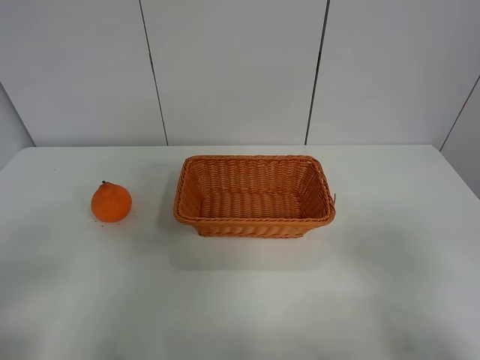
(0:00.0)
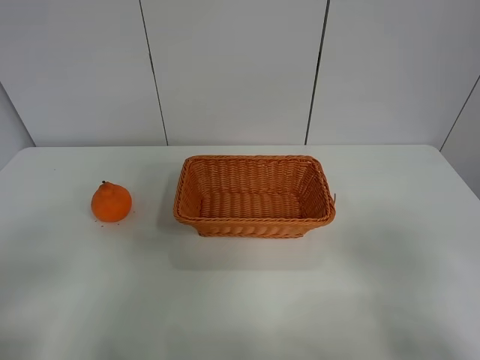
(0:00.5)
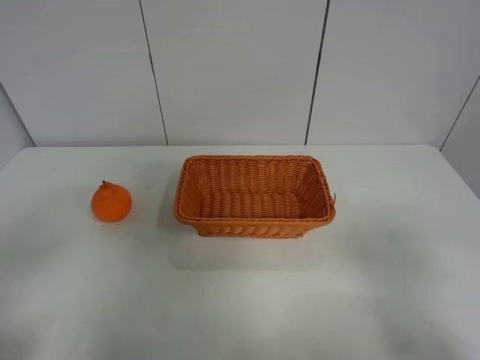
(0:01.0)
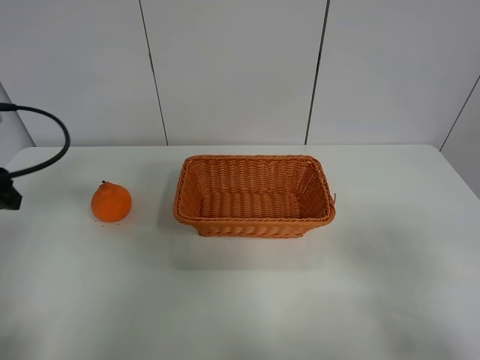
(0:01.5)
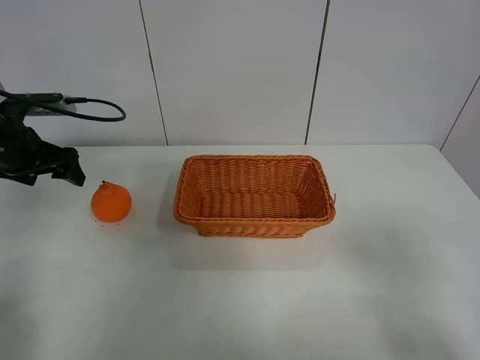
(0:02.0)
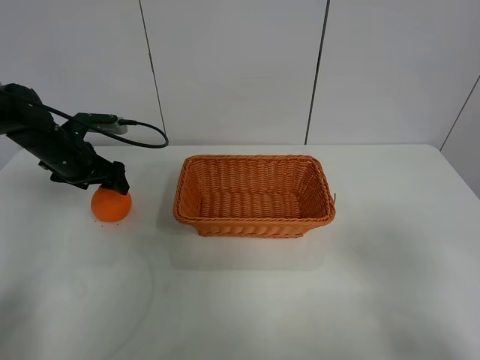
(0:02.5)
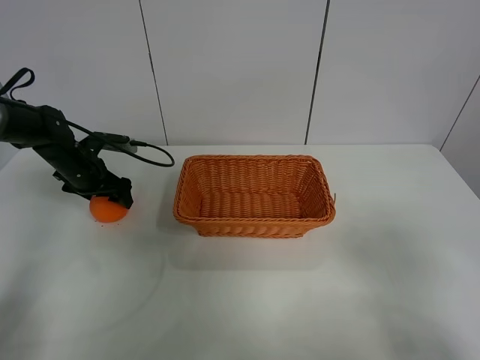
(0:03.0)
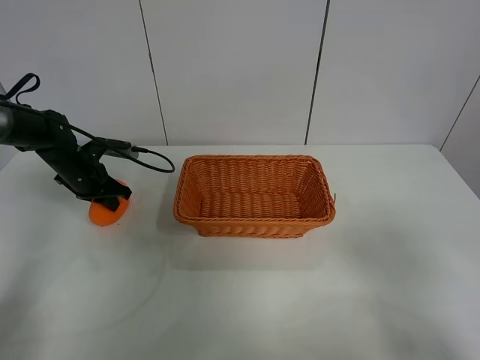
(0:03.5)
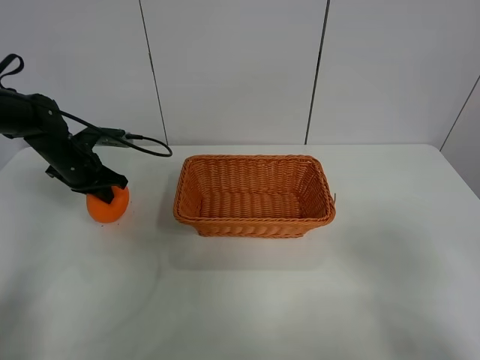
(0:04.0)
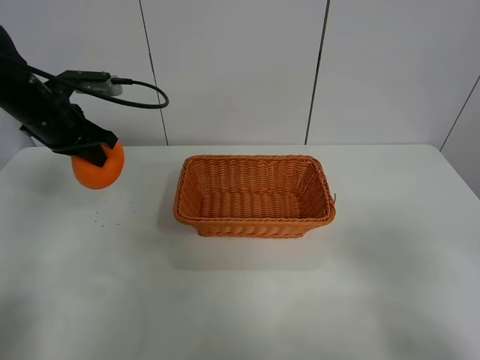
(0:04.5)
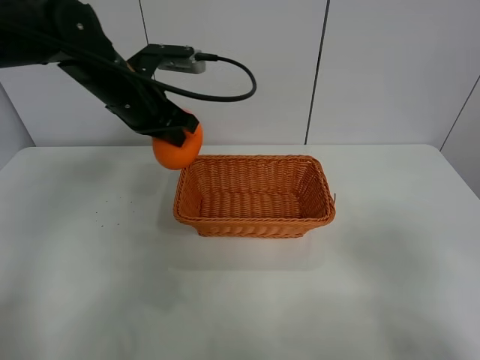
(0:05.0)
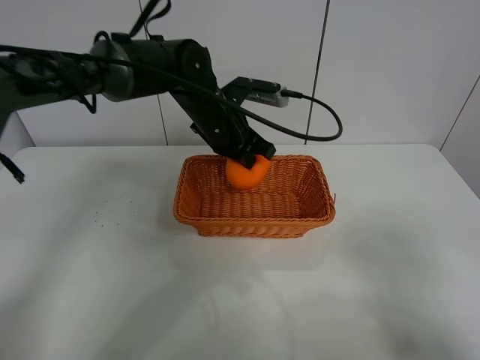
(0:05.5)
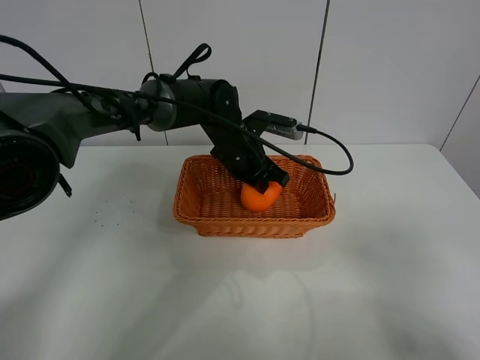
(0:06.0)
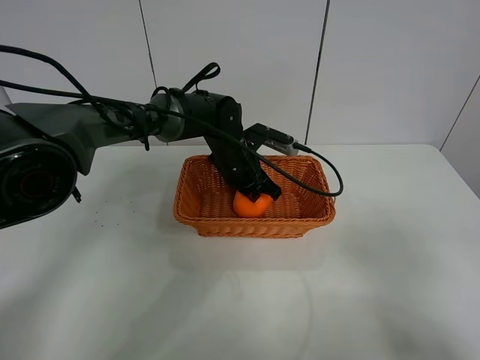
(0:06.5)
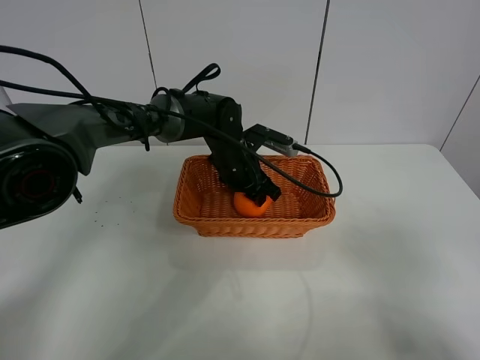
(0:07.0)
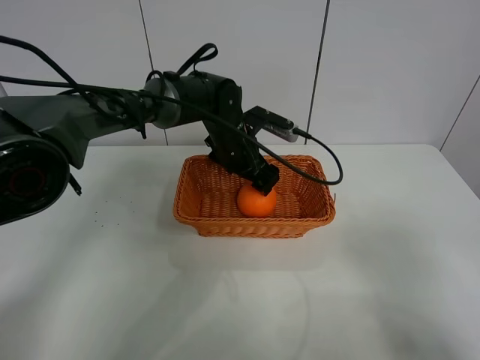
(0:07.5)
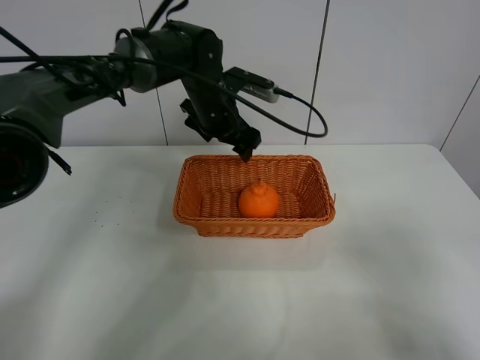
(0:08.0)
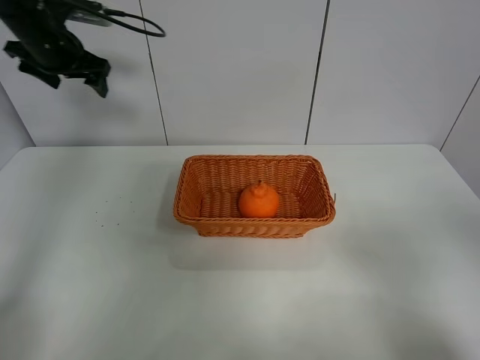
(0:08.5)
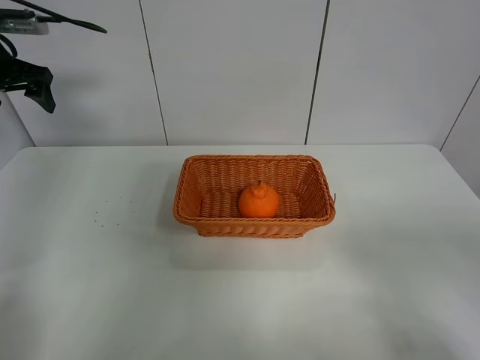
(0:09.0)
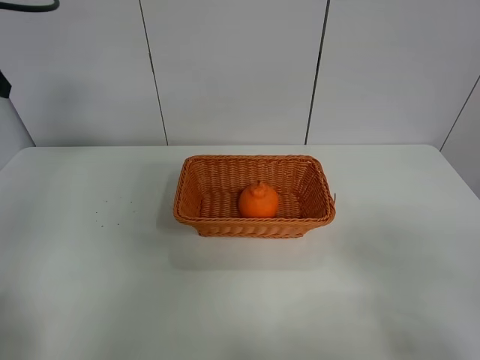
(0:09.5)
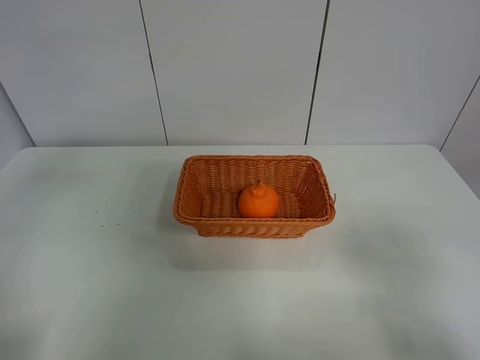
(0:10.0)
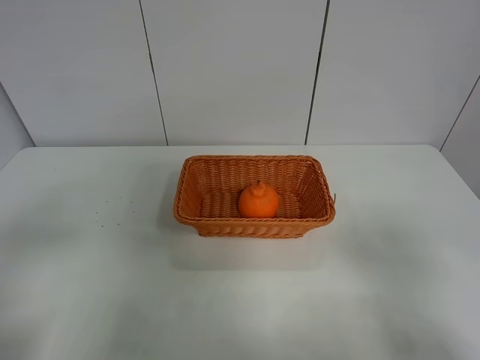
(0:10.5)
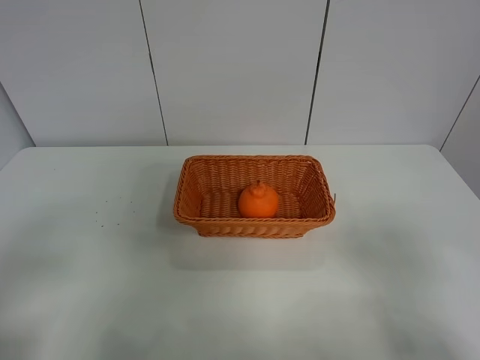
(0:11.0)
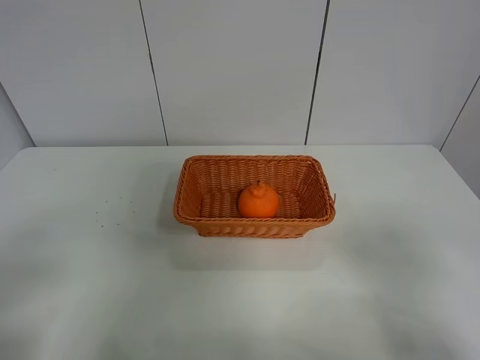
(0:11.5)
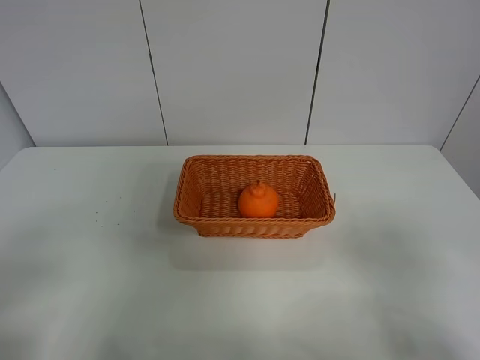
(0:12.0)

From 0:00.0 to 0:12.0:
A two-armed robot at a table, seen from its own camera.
Task of the whole recording: left gripper grabs oranges and puts them in the basket.
Step, from 0:00.0 to 0:03.5: Grasp the orange with left gripper.
Step, from 0:04.0 to 0:08.0: Place the orange in the basket with left gripper.
From 0:00.0 to 0:02.0: The left gripper shifts about 35 cm forward.
From 0:02.0 to 0:04.0: The left gripper travels downward and forward by approximately 10 cm, and closes its fingers.
From 0:04.0 to 0:06.0: The left gripper travels to the right by roughly 30 cm.
From 0:06.0 to 0:08.0: The left gripper goes roughly 10 cm upward and to the left, and opens its fingers.
From 0:08.0 to 0:10.0: The left gripper moves backward, to the left and upward, about 40 cm.

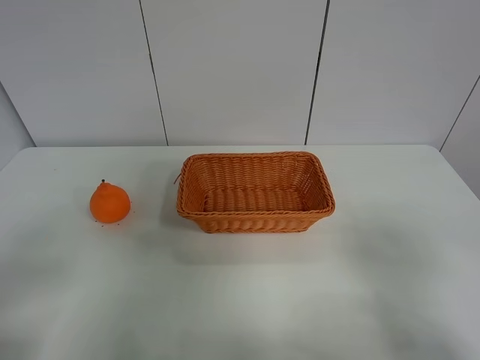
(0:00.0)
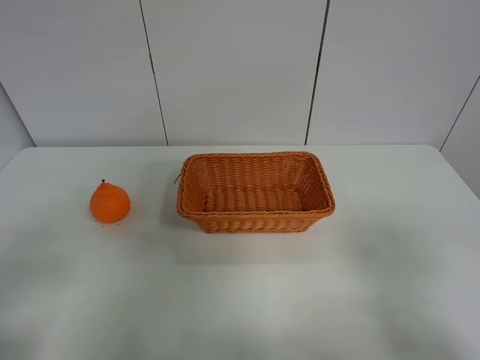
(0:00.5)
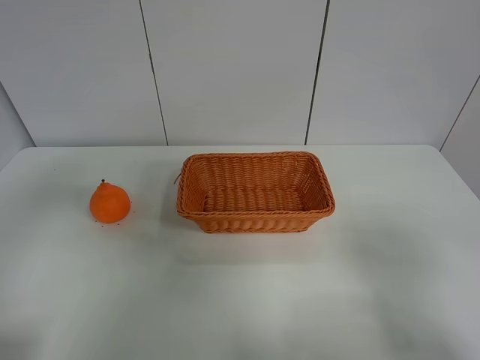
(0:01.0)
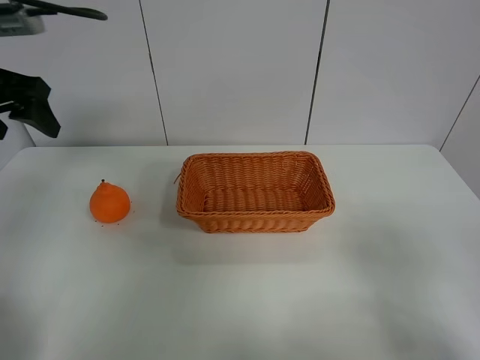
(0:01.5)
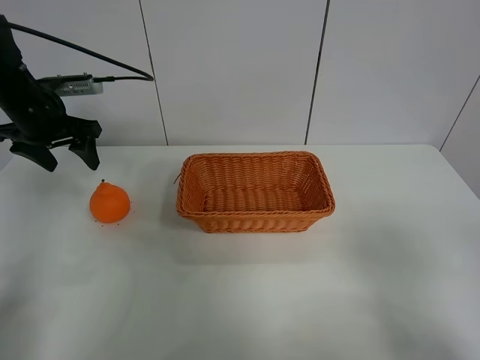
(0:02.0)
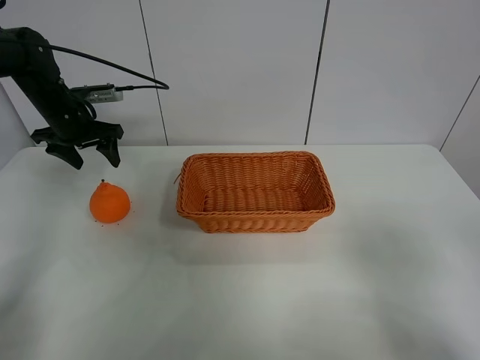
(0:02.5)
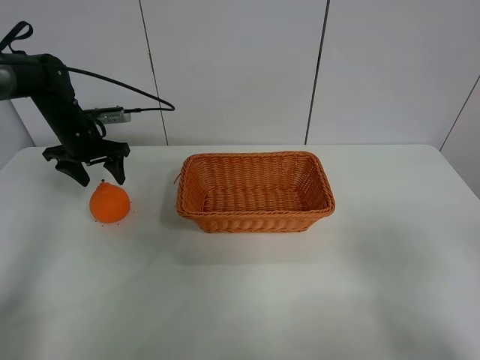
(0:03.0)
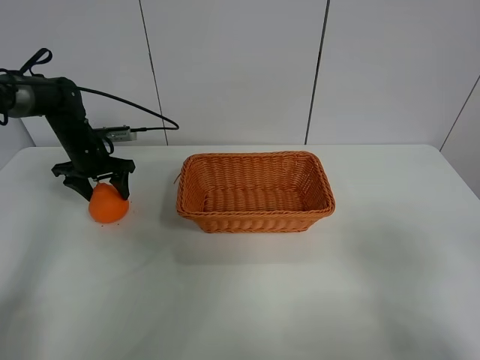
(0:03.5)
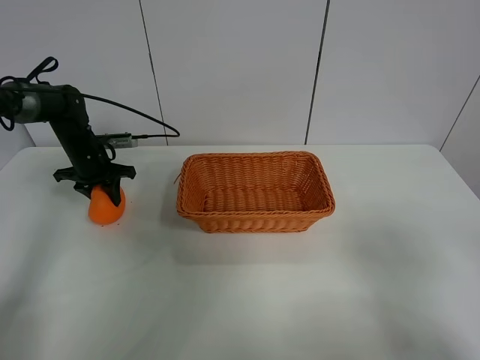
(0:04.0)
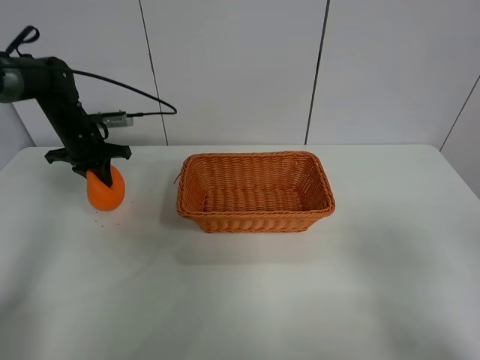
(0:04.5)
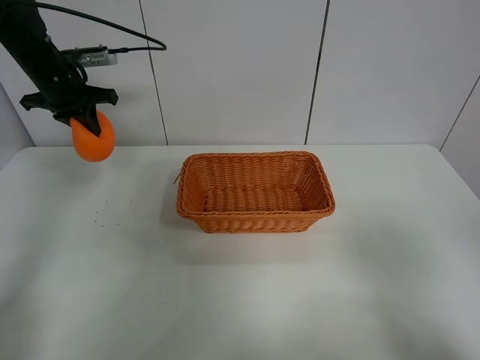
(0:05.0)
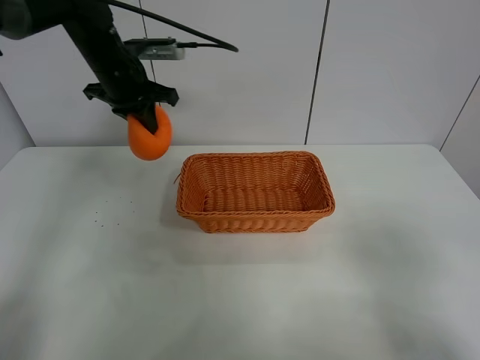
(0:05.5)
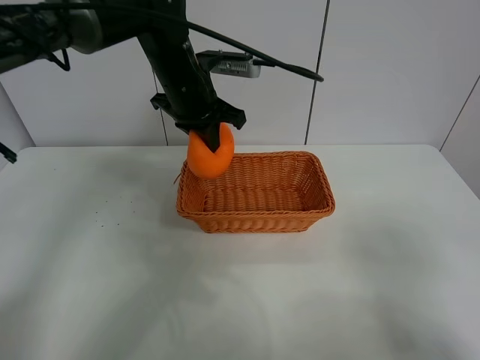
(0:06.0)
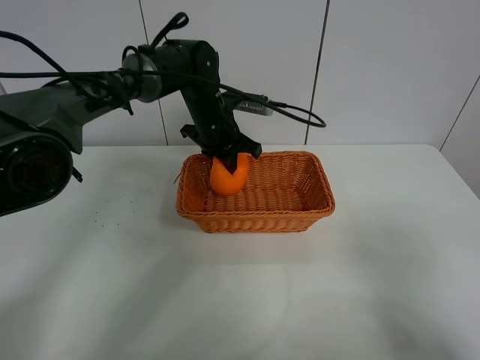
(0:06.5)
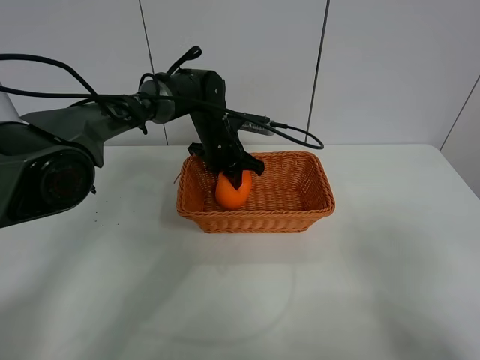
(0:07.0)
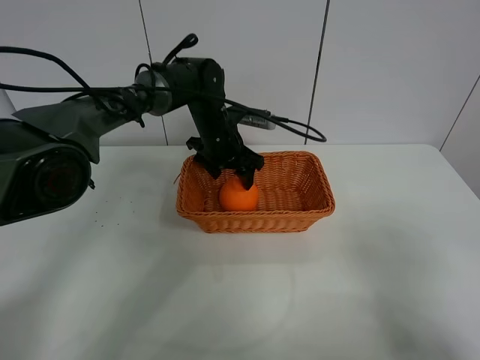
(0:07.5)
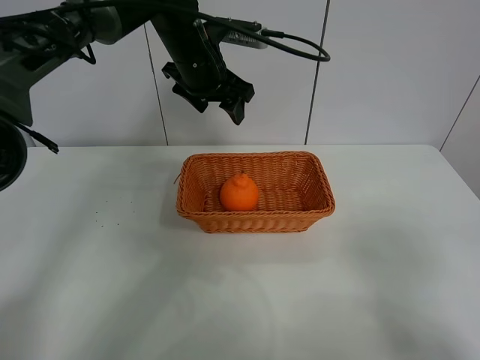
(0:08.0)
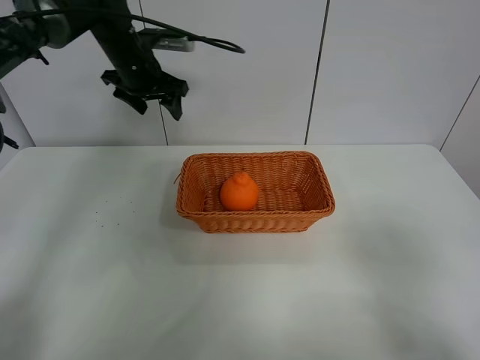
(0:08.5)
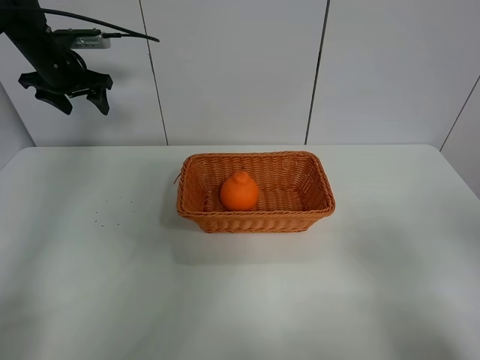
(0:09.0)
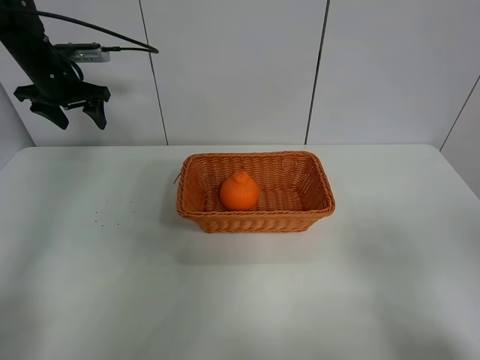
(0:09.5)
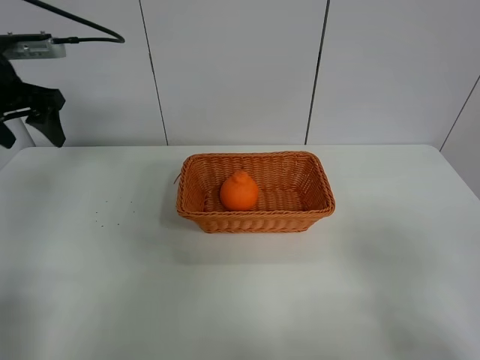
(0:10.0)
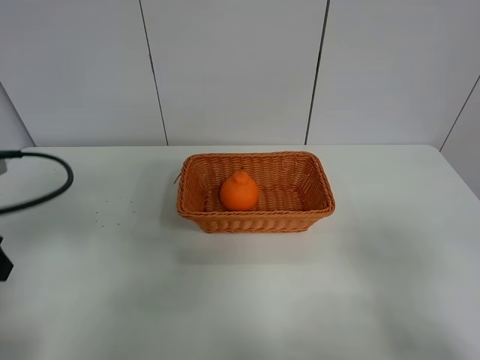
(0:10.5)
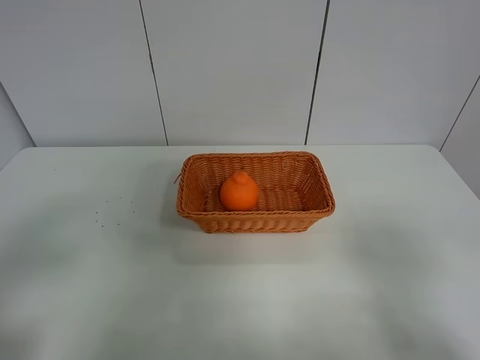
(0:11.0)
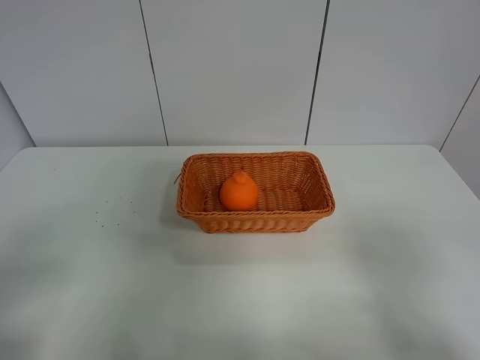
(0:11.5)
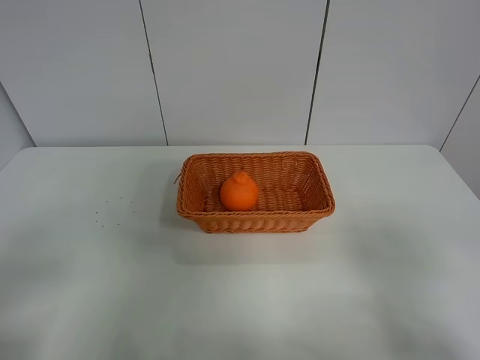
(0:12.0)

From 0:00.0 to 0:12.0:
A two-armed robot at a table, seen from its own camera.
Task of the whole recording: left gripper grabs oranges and puts them in the basket.
Step, from 0:00.0 to 0:04.0: Grasp the orange with left gripper.
Step, from 0:04.5 to 0:08.5: Place the orange in the basket with left gripper.
From 0:00.0 to 0:02.0: The left gripper is displaced forward by roughly 40 cm.
From 0:02.0 to 0:04.0: The left gripper moves downward and forward, approximately 15 cm, and closes.
From 0:04.0 to 0:06.0: The left gripper moves to the right and upward, about 30 cm.
From 0:06.0 to 0:08.0: The left gripper reaches some 10 cm downward, then returns, and opens its fingers.
From 0:08.0 to 0:10.0: The left gripper shifts roughly 25 cm to the left and backward.
From 0:10.0 to 0:12.0: The left gripper heads backward, covering about 35 cm.
